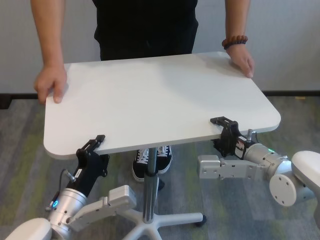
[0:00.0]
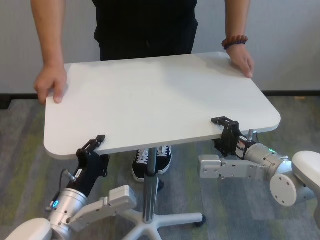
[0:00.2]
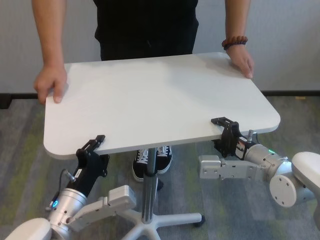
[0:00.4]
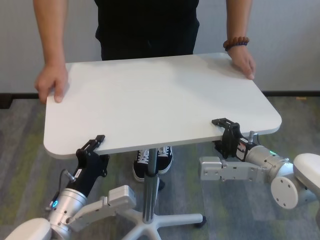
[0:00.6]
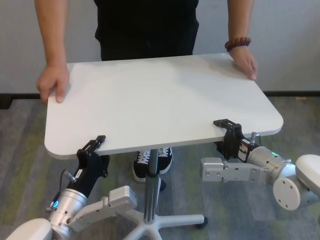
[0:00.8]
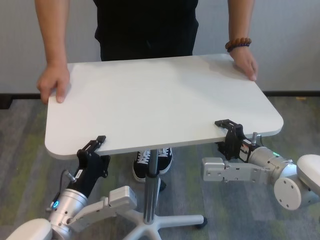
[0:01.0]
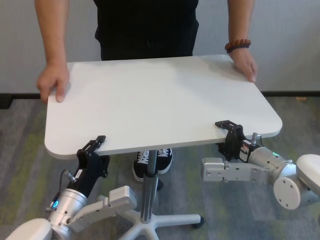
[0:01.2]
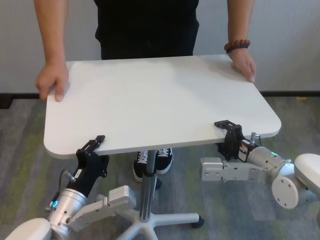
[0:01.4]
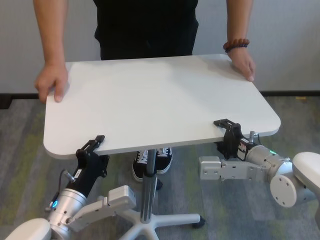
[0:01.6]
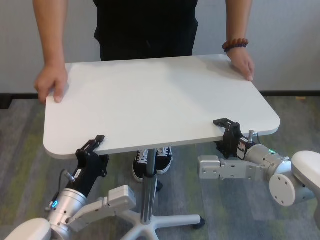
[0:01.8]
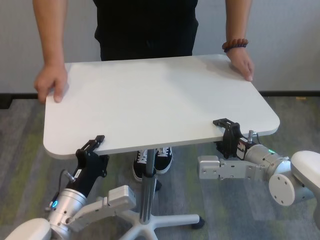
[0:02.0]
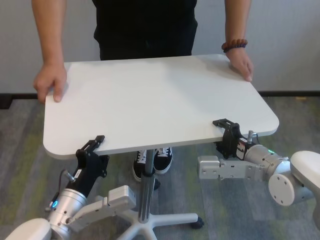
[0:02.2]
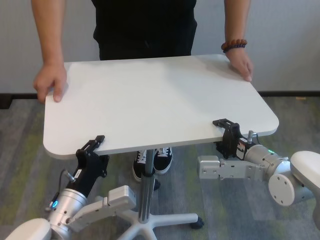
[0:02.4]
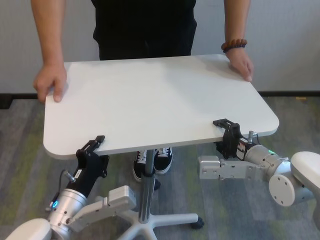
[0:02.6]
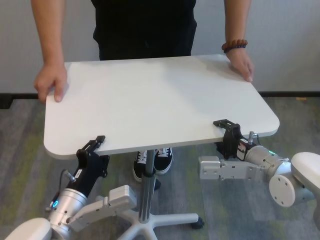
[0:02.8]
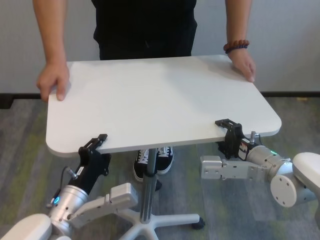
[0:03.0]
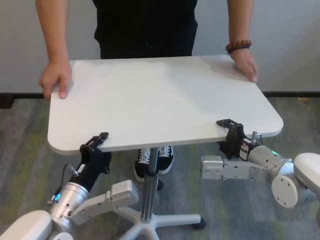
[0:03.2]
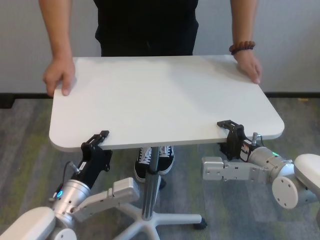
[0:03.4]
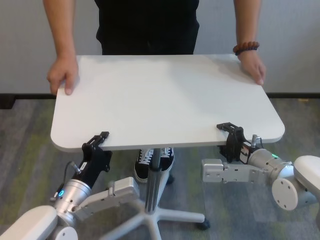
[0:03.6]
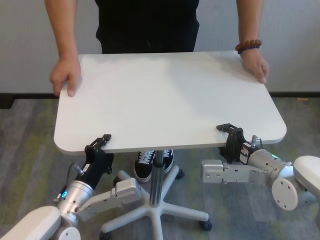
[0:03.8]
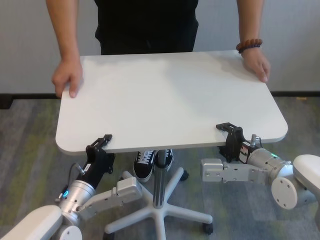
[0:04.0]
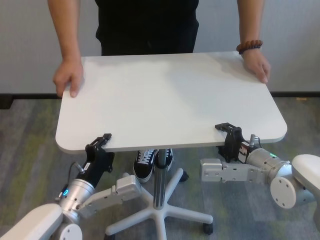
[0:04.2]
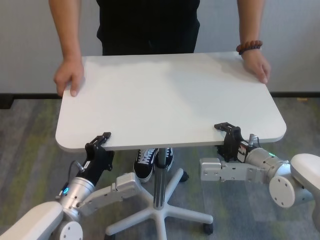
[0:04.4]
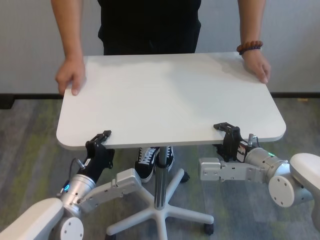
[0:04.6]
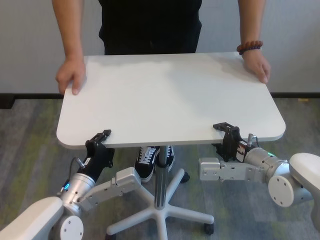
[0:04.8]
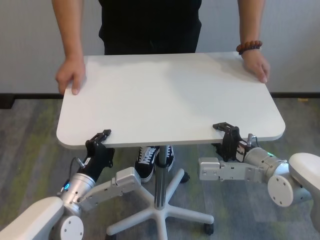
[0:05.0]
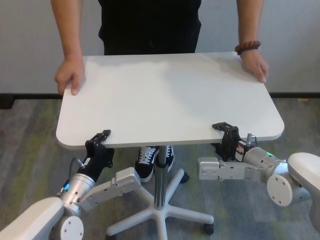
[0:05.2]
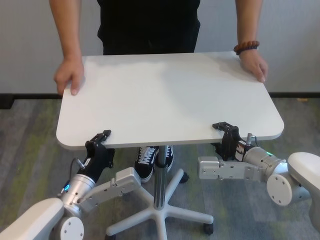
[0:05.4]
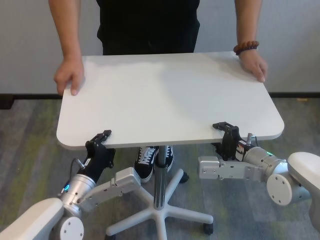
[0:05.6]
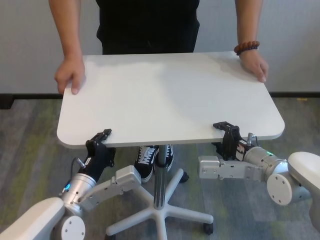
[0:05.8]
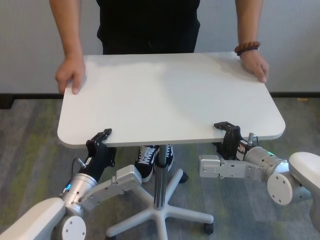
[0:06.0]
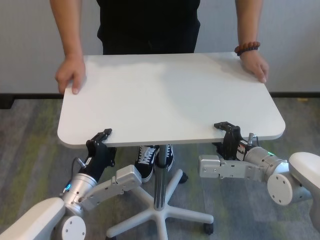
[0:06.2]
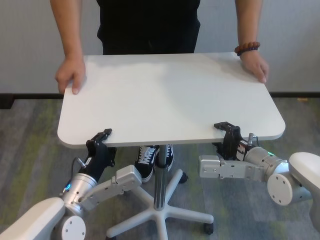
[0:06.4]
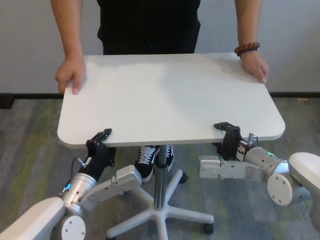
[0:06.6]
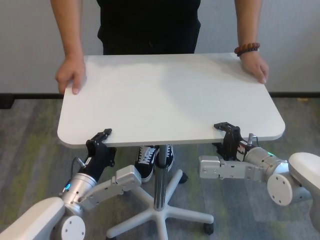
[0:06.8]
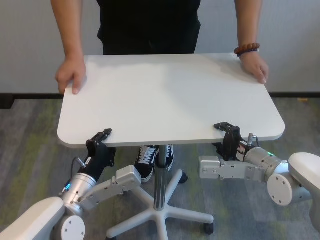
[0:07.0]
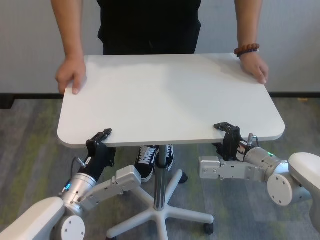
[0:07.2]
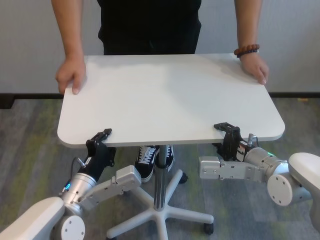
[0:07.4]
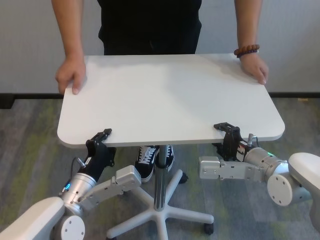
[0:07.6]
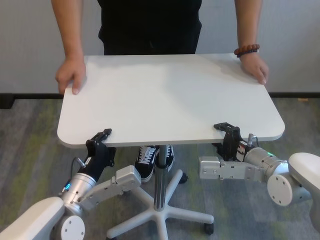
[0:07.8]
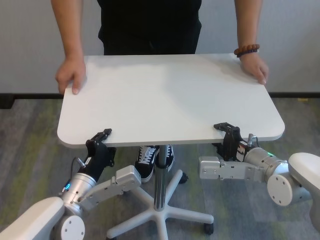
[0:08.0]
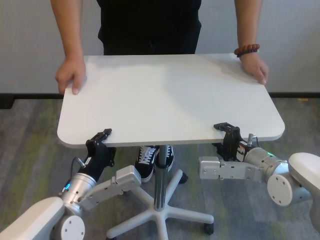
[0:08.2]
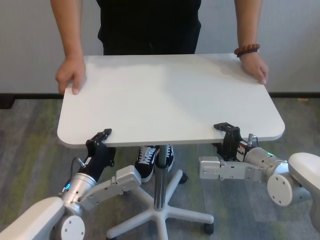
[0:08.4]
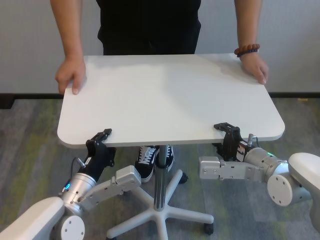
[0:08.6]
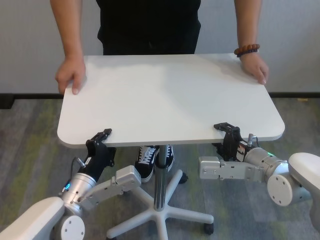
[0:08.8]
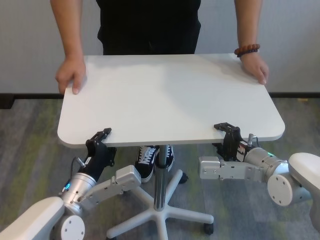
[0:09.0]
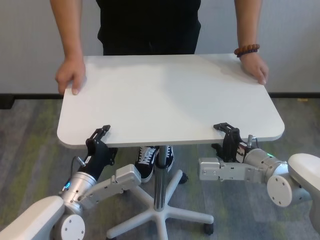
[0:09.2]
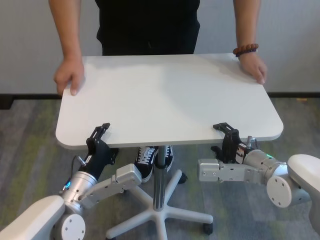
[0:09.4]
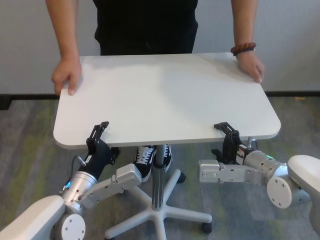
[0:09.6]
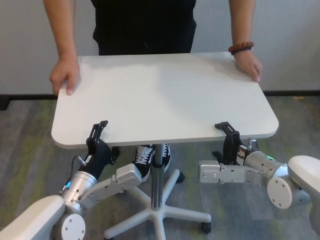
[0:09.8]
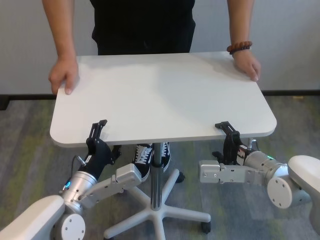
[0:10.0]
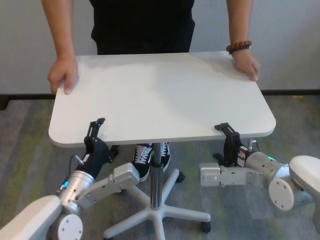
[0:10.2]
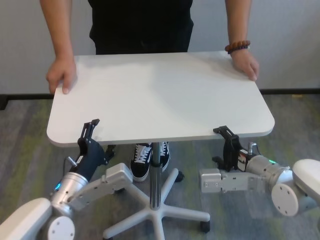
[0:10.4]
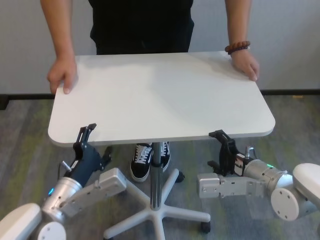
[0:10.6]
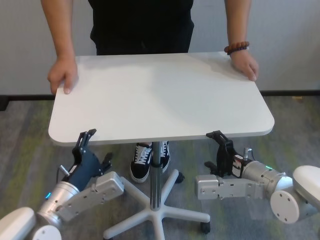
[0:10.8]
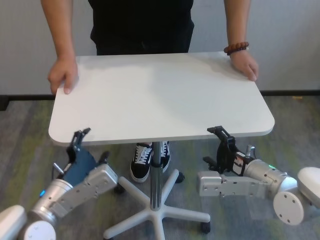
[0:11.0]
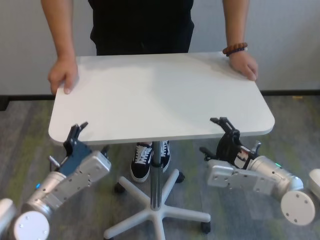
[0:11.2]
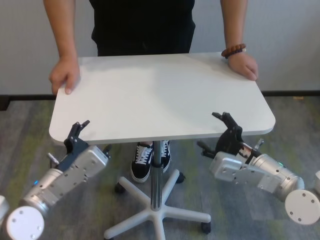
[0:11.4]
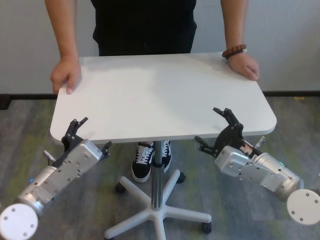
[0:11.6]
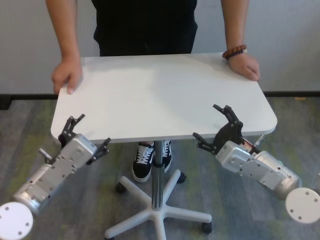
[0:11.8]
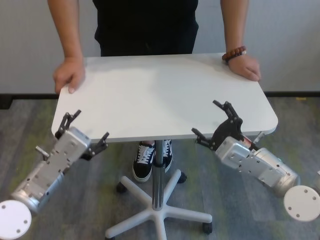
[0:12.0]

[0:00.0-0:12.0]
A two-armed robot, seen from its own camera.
Task of the whole recording: human machine collaborative table moving.
Step, 0:00.0 to 0:10.0: Move the table forward with both grippers.
